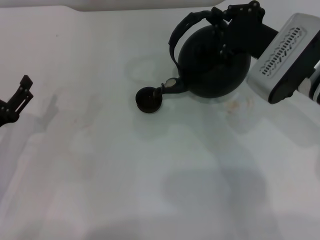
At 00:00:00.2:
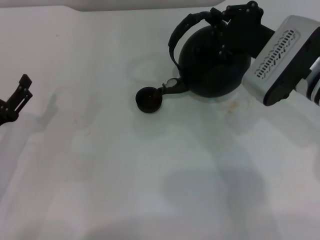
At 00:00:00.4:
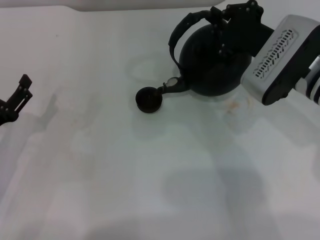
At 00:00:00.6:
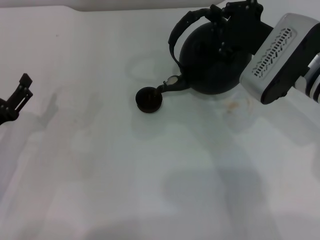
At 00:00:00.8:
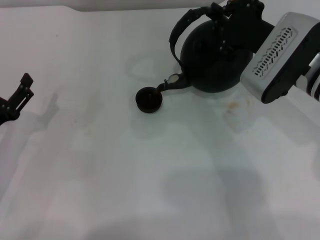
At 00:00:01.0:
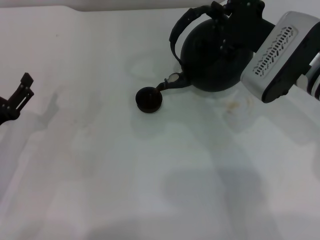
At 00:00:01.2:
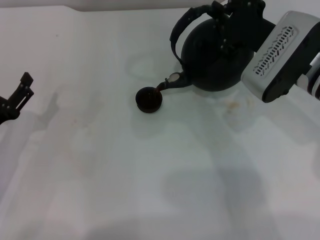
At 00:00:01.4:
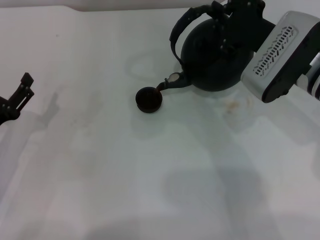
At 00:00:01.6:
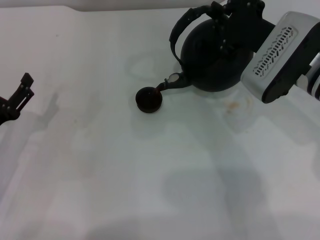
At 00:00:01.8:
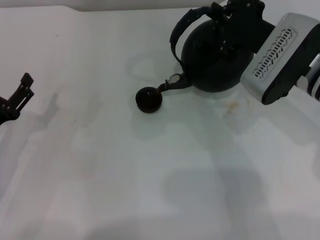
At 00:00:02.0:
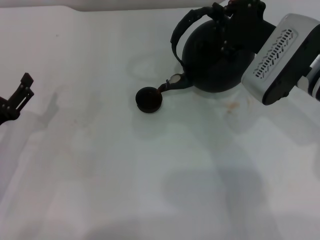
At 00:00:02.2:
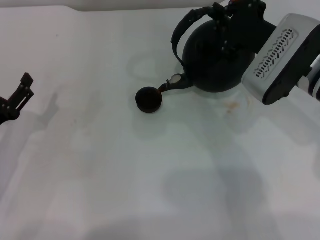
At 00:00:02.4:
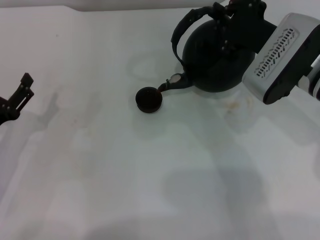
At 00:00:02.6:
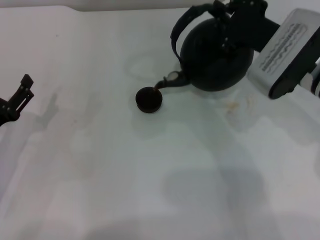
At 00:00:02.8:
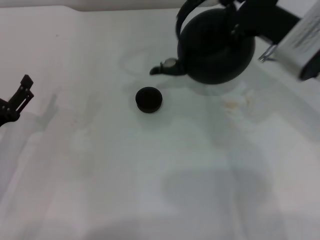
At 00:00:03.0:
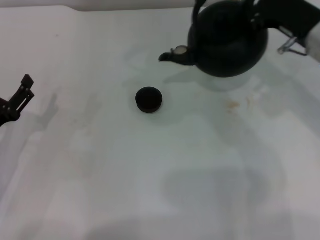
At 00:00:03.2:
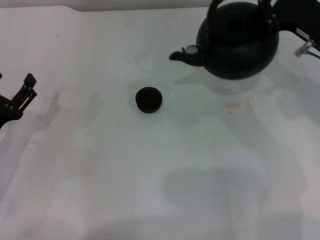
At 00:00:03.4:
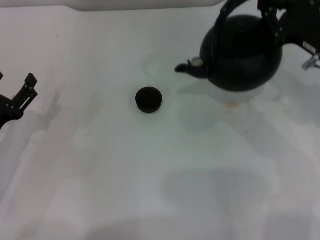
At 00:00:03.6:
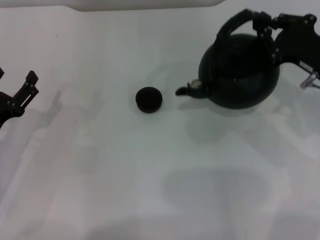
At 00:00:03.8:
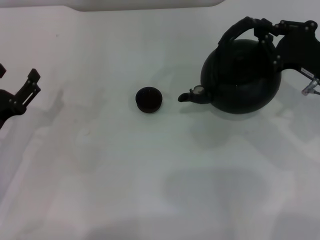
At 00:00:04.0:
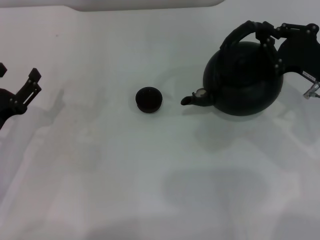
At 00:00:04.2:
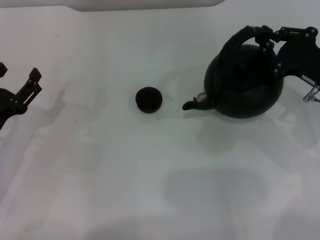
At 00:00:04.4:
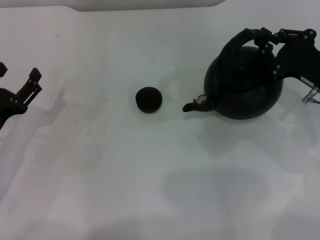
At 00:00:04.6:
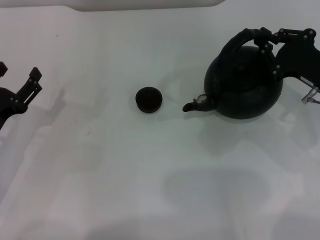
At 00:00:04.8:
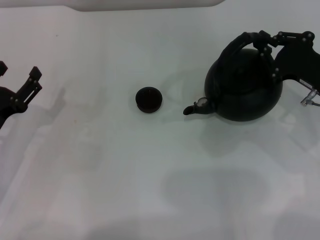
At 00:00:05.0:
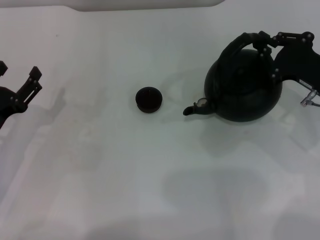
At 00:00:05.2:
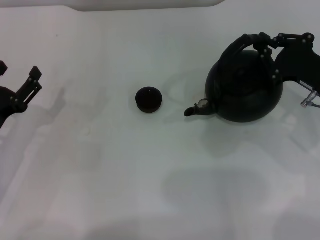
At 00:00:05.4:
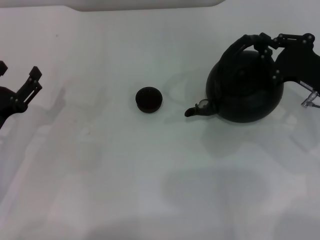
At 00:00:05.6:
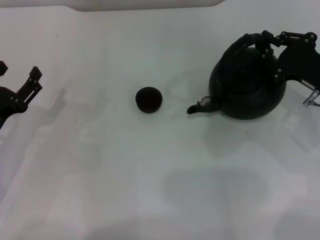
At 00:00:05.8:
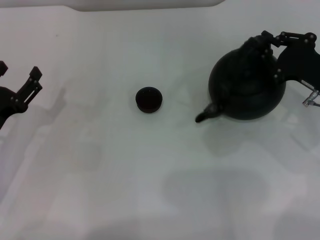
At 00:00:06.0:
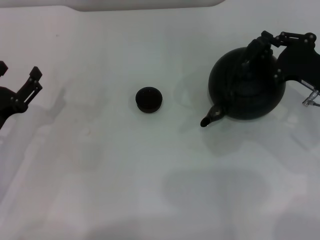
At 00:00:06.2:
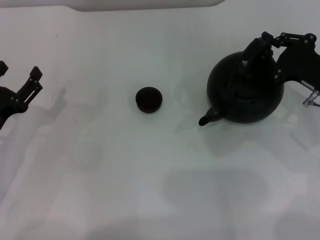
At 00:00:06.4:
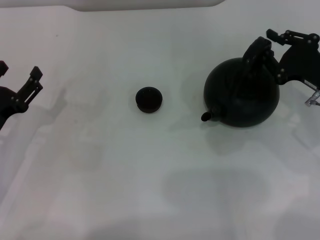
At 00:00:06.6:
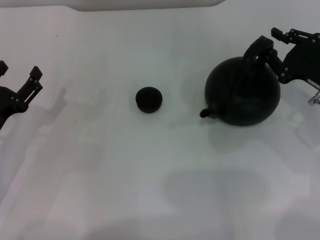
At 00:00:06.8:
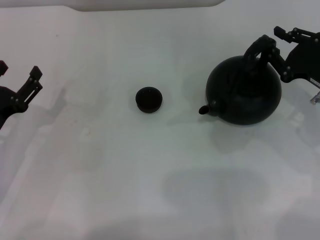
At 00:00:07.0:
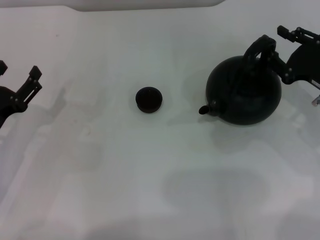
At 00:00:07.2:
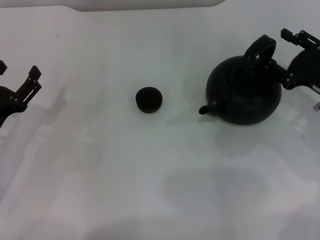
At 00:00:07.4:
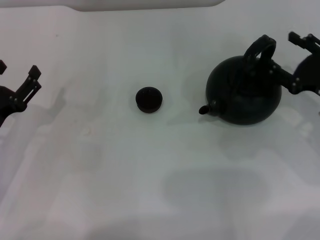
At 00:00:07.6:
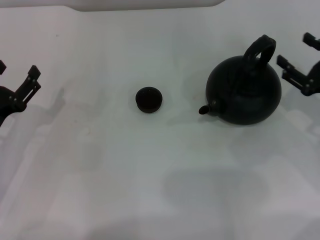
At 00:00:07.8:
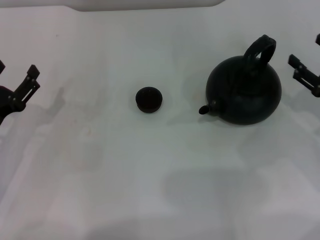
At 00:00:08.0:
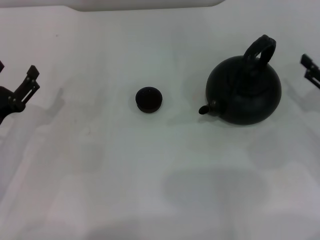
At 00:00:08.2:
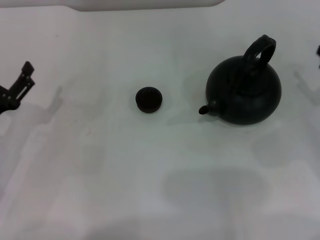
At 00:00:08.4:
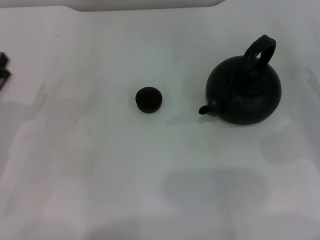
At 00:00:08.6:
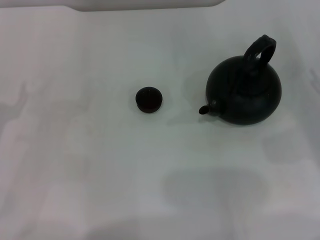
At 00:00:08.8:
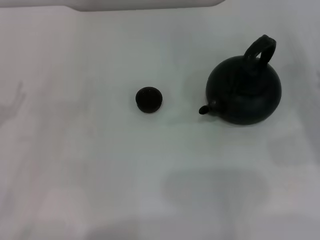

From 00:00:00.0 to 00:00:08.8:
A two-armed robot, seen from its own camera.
Task of the whole recording: Grasp the handle of the teapot with one hand and pour tea into the teacup.
Step, from 00:00:00.0 to 00:00:02.6: Pour tea into the teacup with the right gripper.
Step, from 00:00:02.8 to 00:00:07.0: Put down the teapot with the right gripper.
From 00:00:00.0 to 00:00:01.4: Both grippers stay about where they are.
From 00:00:03.0 to 00:00:04.4: The right gripper goes roughly 10 cm downward and to the right.
From 00:00:04.4 to 00:00:05.8: Neither gripper changes place.
From 00:00:05.8 to 00:00:07.4: The right gripper opens its fingers.
From 00:00:07.4 to 00:00:08.8: The left gripper moves some 5 cm; the right gripper heads to the right, covering about 5 cm.
